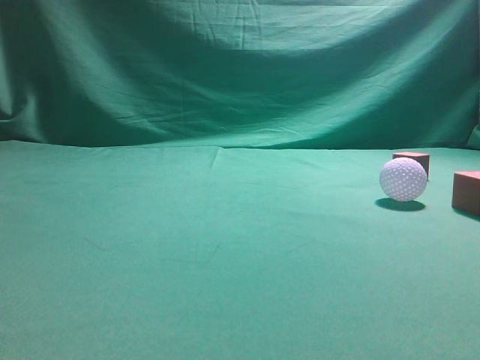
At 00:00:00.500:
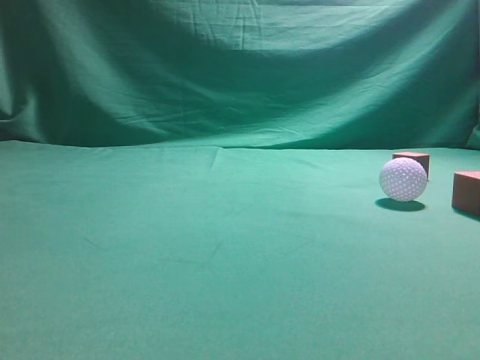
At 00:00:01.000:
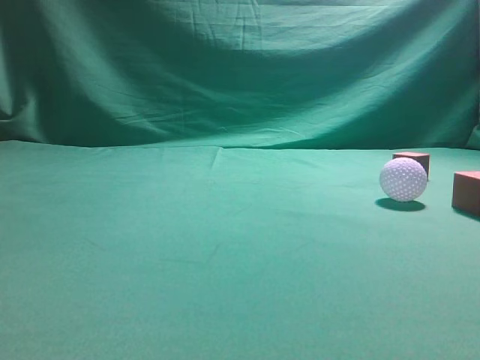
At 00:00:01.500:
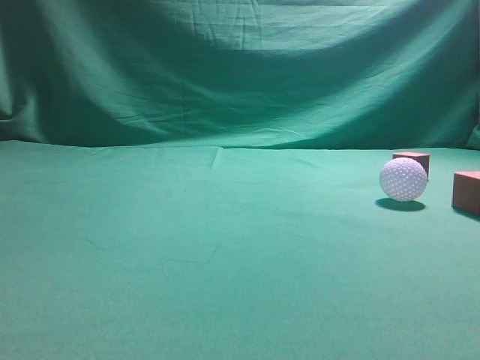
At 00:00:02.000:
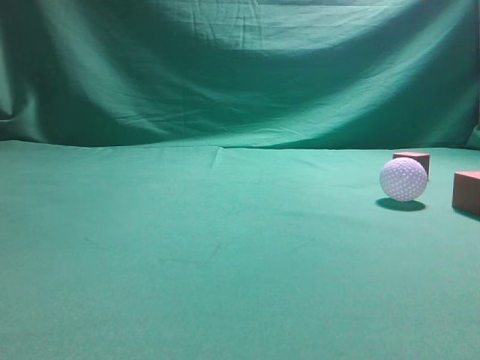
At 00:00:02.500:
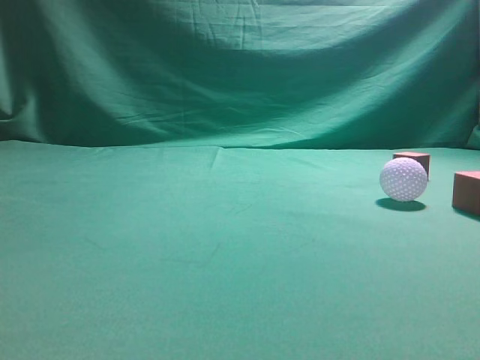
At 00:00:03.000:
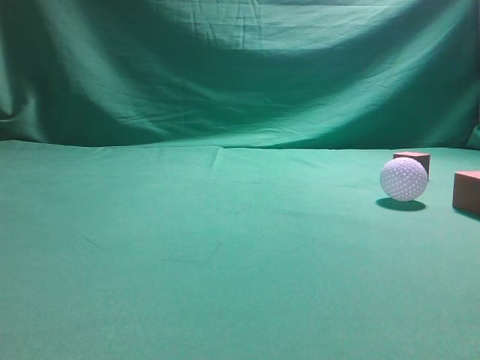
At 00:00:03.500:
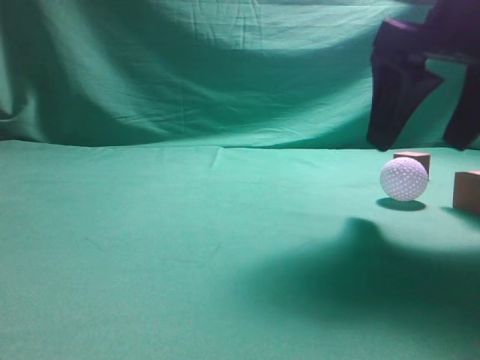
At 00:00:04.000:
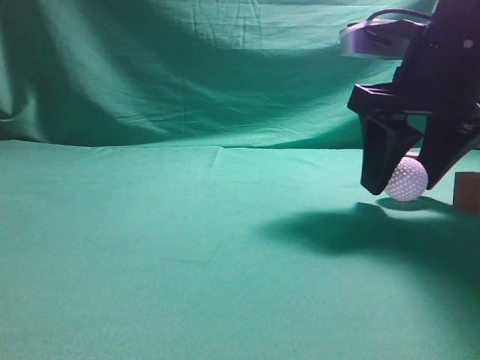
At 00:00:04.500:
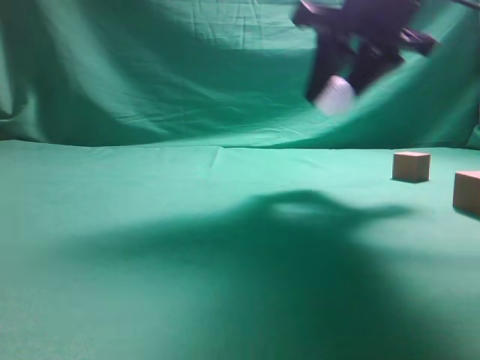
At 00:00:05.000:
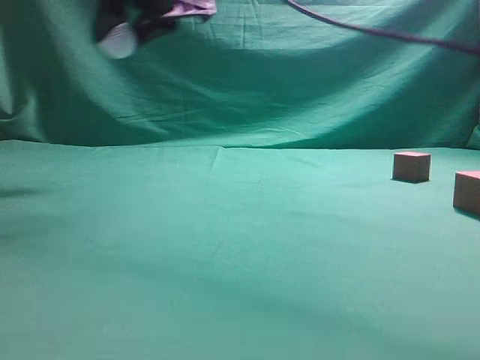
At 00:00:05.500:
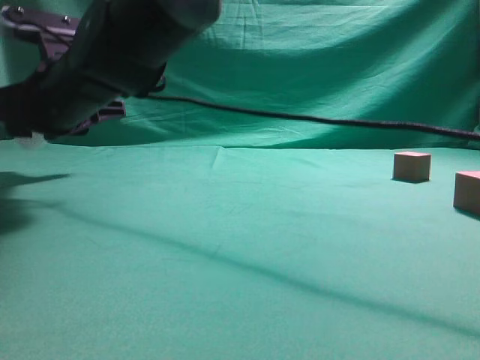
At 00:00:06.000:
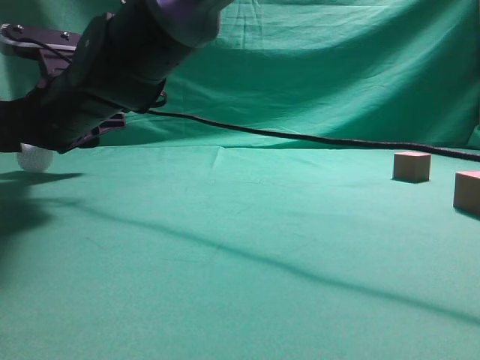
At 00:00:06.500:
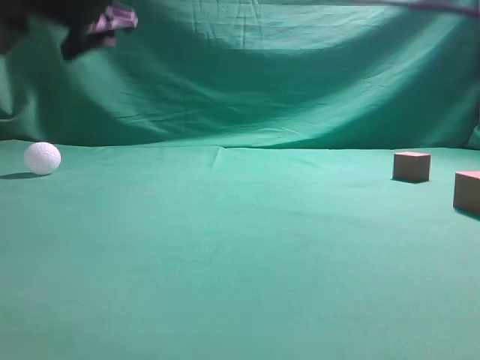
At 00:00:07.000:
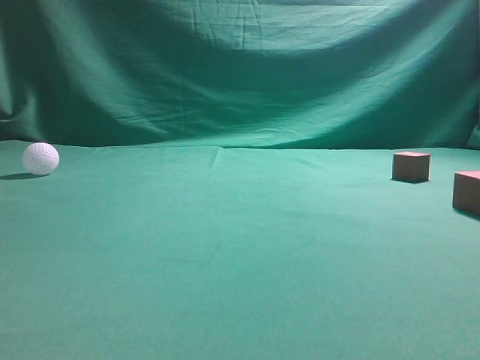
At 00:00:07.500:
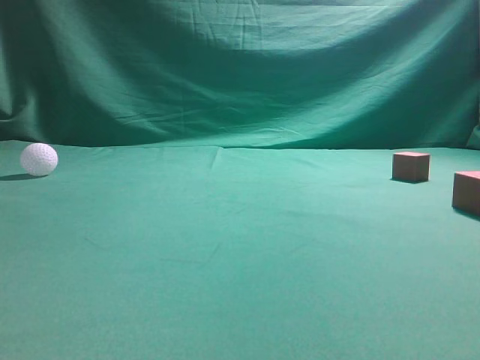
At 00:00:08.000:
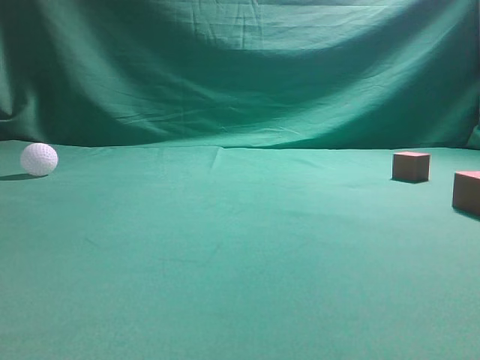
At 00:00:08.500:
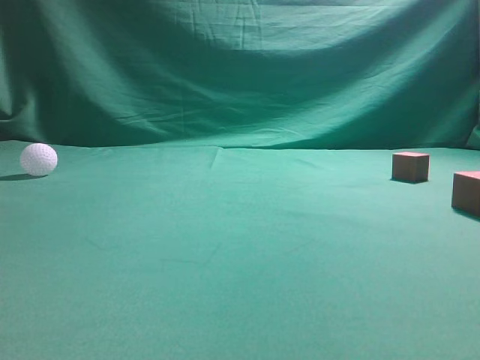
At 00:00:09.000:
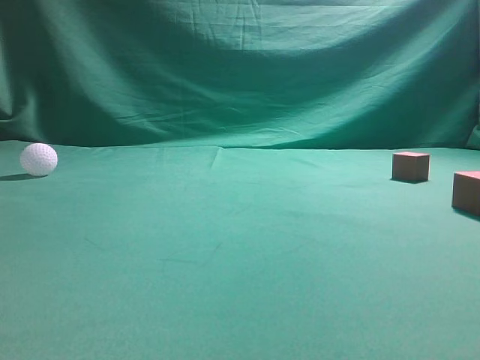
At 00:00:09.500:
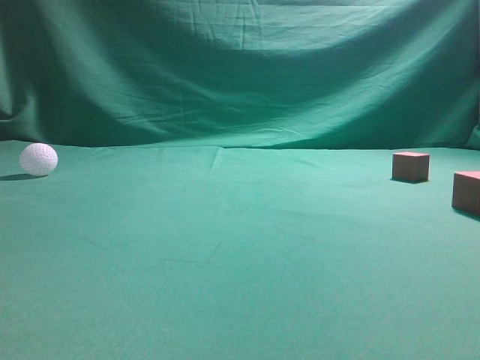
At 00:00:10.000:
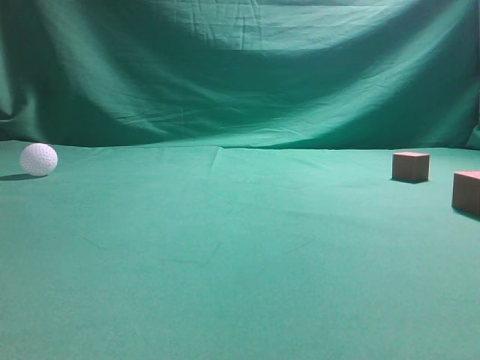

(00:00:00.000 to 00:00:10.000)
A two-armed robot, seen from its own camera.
Step, 00:00:00.000 - 00:00:04.000: Grasp the spherical object on the right side.
00:00:02.000 - 00:00:04.000: The right gripper moves forward, to the left and downward, roughly 30 cm, and opens up.
00:00:04.000 - 00:00:06.000: The right gripper is displaced to the left by some 35 cm.
00:00:06.000 - 00:00:08.000: The right gripper is displaced to the right, upward and backward by some 50 cm, and closes up.
